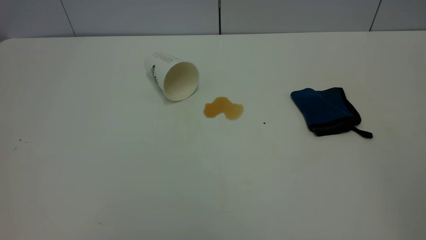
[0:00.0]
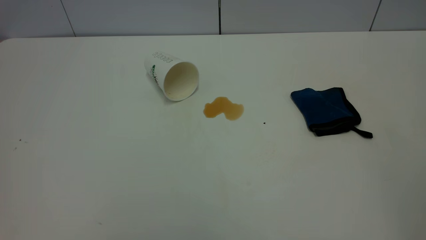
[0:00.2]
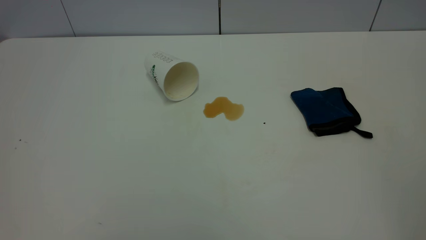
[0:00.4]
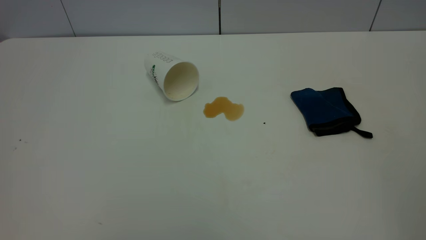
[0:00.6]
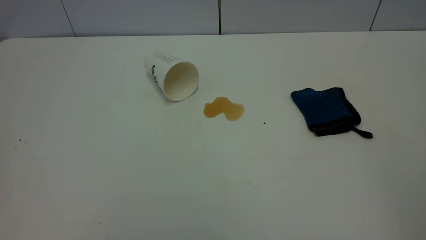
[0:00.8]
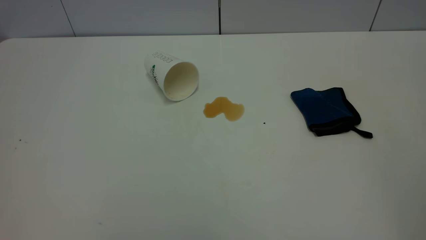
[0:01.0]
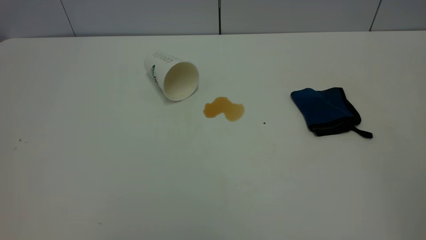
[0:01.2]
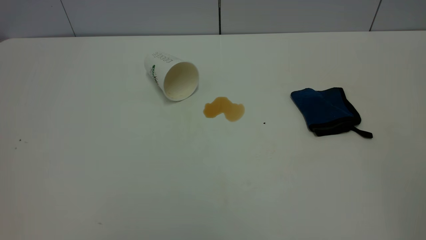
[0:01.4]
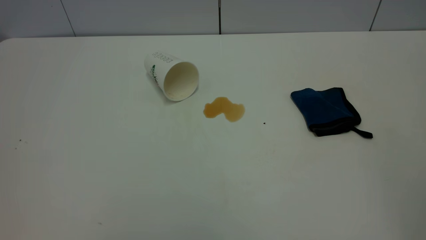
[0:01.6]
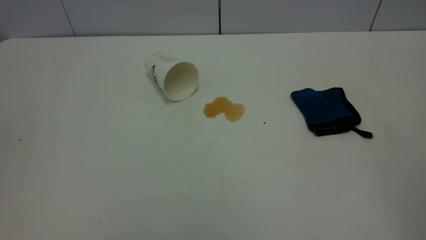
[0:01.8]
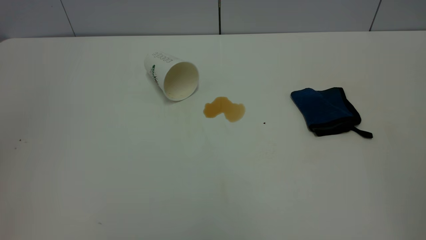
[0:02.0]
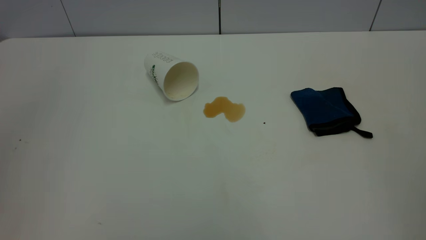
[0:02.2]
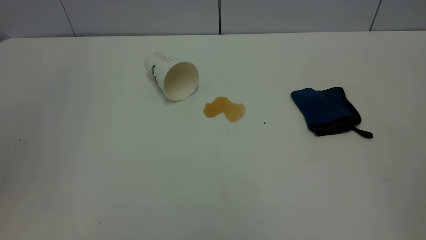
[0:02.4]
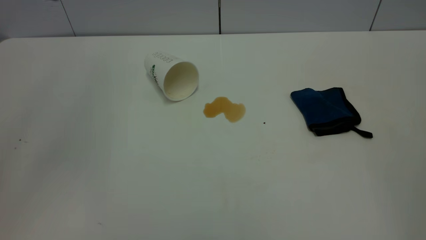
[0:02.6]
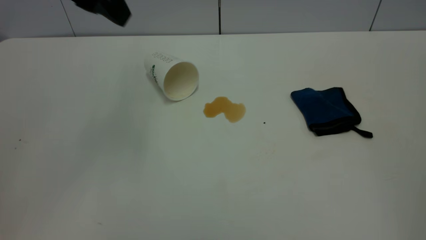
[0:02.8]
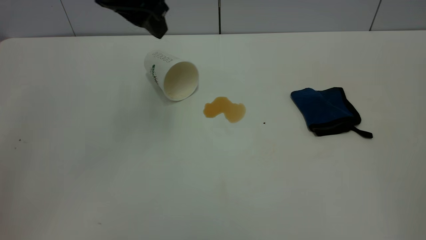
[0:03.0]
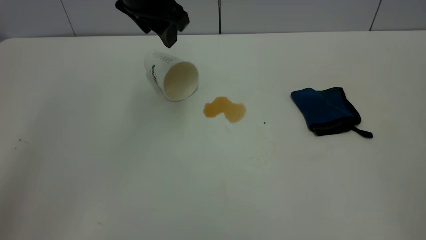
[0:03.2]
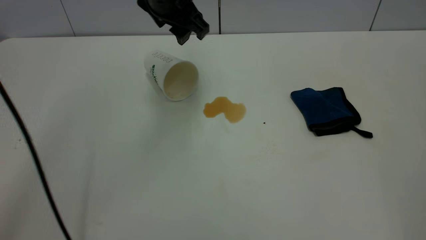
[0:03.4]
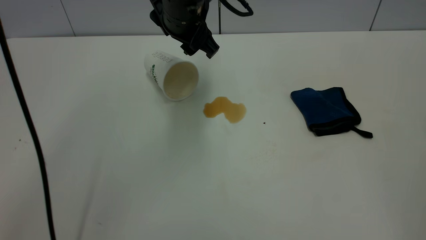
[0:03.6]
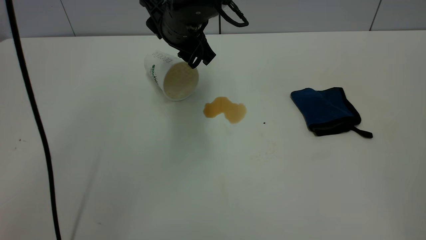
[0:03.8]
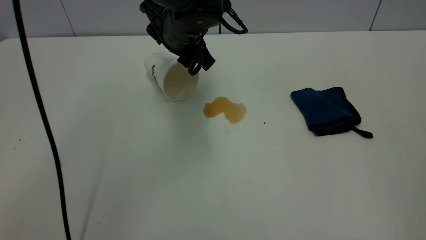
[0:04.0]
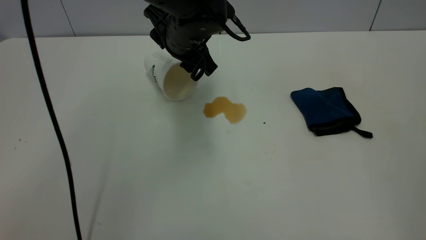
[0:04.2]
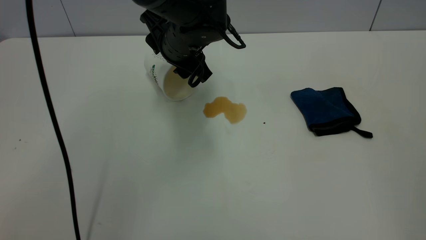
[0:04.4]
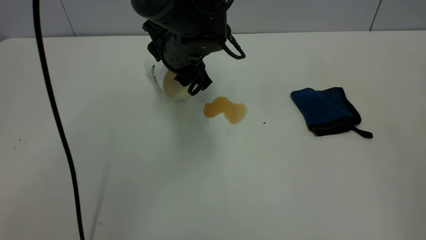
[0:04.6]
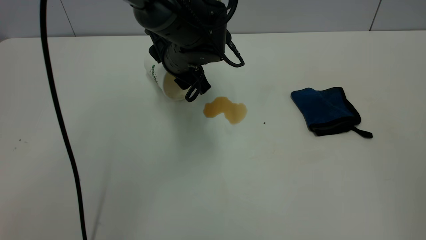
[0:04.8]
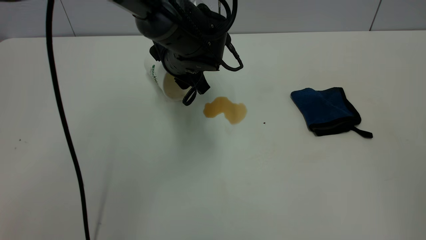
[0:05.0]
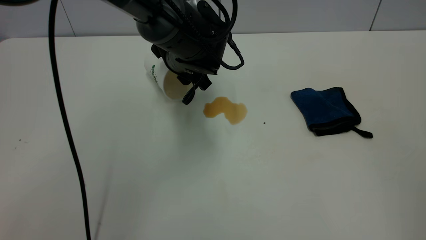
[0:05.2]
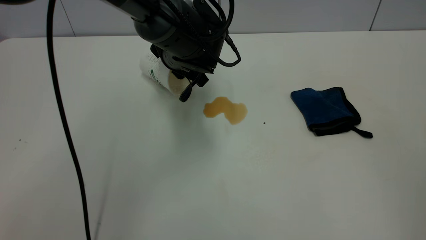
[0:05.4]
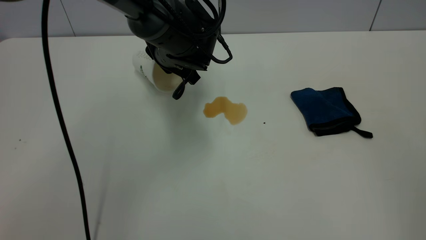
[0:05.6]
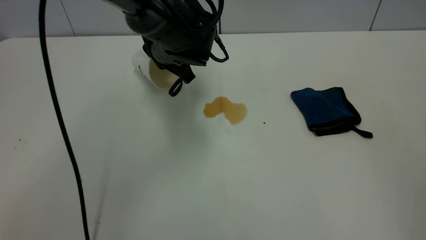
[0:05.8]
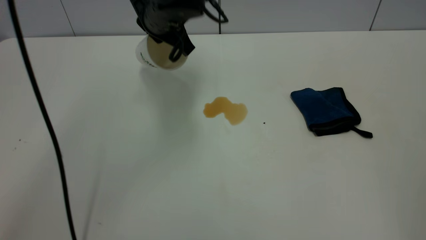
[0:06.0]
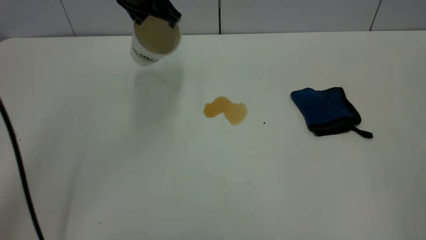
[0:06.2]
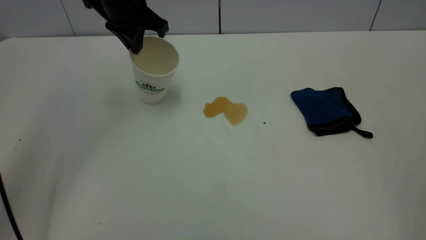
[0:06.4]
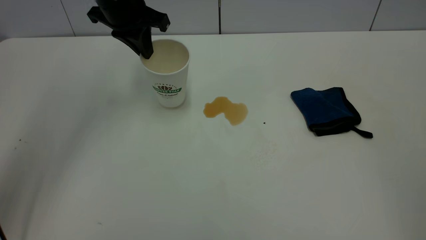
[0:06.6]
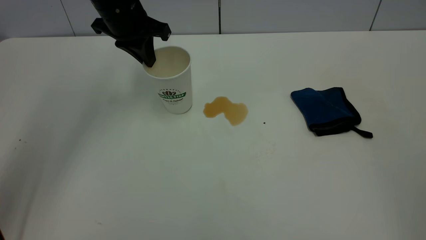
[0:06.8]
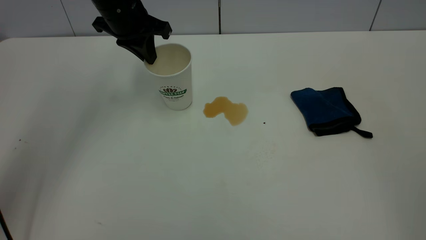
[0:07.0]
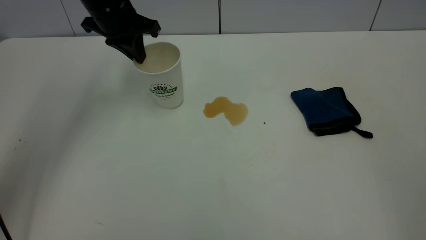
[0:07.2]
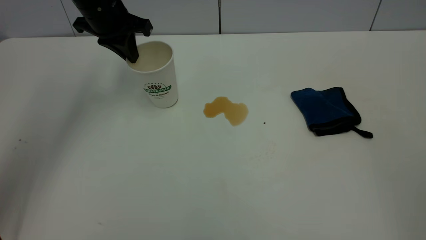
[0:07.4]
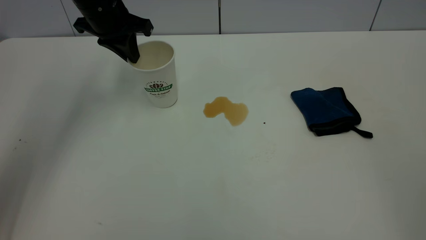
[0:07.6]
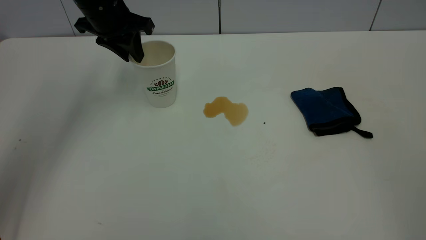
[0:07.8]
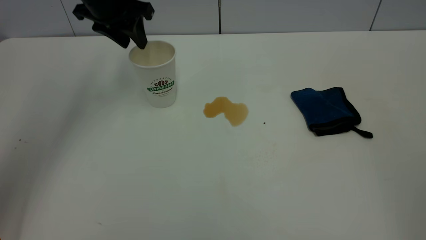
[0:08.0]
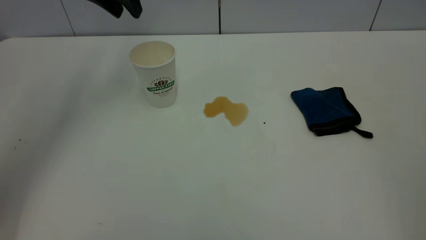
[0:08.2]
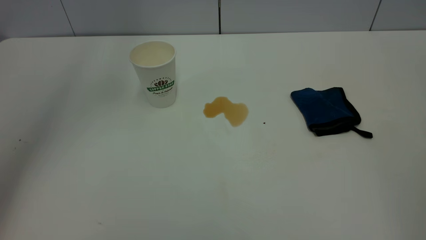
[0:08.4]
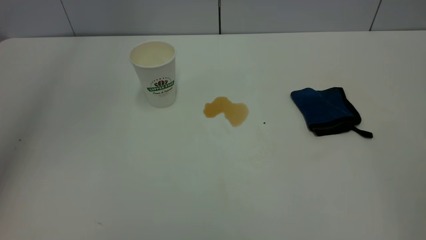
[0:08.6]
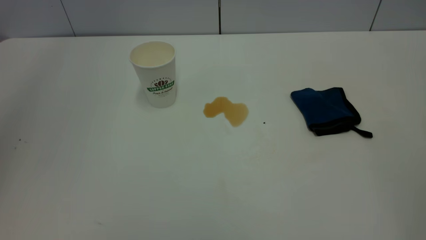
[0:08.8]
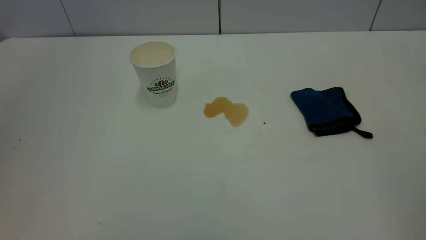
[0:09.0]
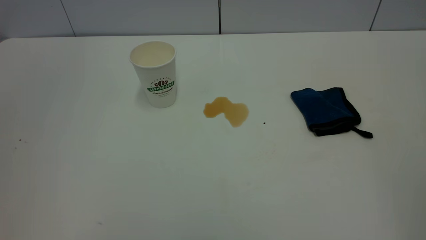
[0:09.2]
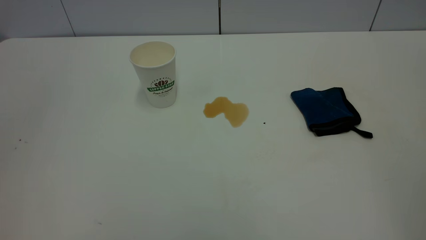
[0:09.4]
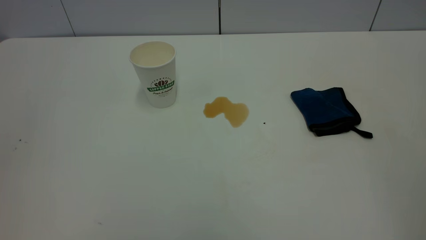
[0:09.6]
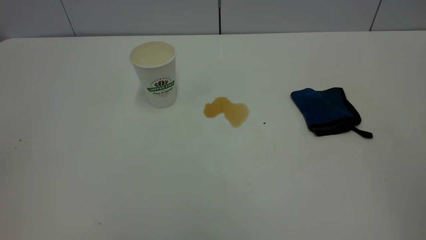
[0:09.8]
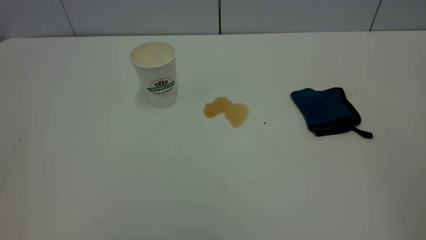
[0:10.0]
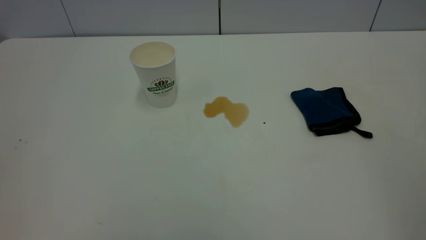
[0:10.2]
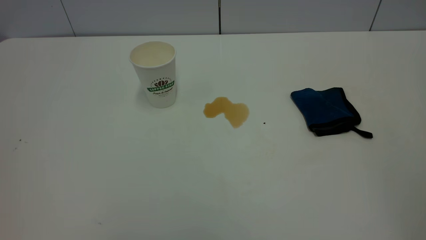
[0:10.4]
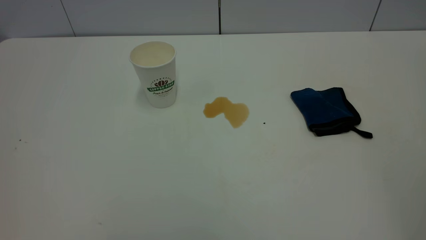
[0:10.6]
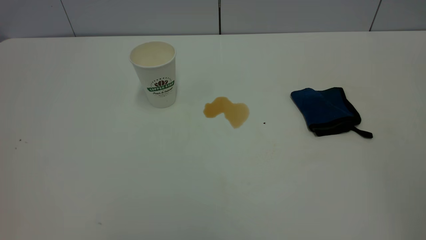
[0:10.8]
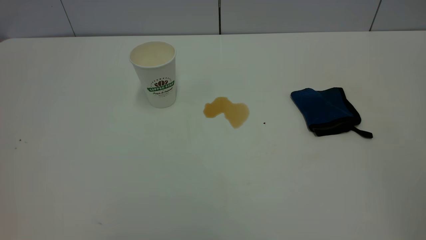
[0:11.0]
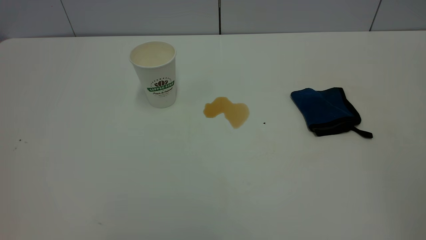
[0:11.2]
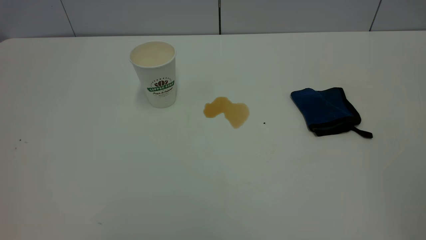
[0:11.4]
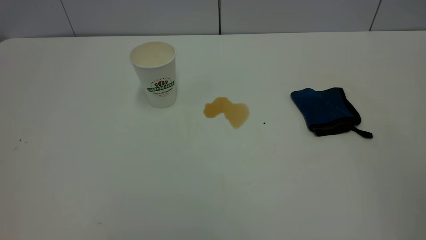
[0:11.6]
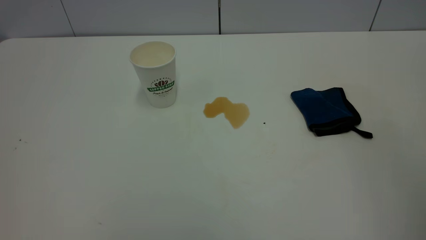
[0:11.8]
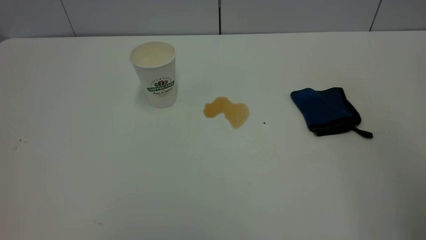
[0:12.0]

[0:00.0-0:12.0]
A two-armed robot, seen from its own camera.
Task of the whole recording: the left gripper pick up the fallen cup and place it upright, the right gripper grasp the blue rag and wipe the tea stain on the table, the right gripper put the blue rag back in its original position.
Step, 0:00.0 to 0:07.8: Stand the paper cup upright.
0:01.6 to 0:03.0: The left gripper goes roughly 40 cm forward and to the right.
0:03.0 to 0:04.4: The left gripper heads downward and to the right, covering about 15 cm.
0:04.4 to 0:06.0: The left gripper is displaced upward by approximately 5 cm, and closes up.
0:06.0 to 0:07.6: The left gripper goes some 10 cm to the left.
0:07.6 to 0:09.0: The left gripper is displaced upward and backward by some 40 cm, and opens.

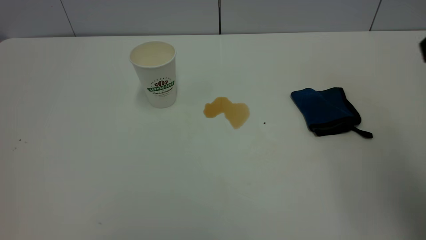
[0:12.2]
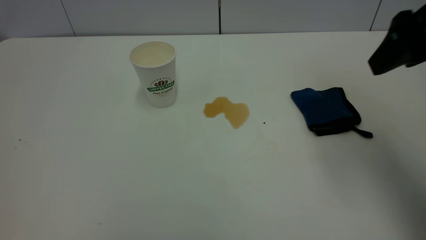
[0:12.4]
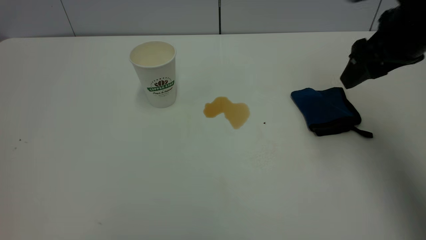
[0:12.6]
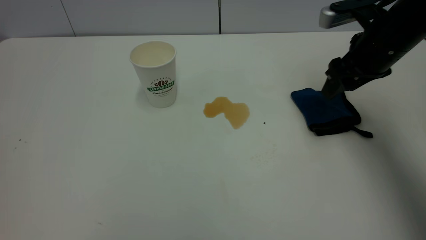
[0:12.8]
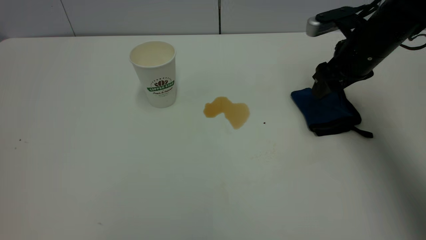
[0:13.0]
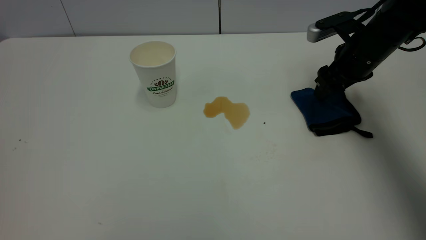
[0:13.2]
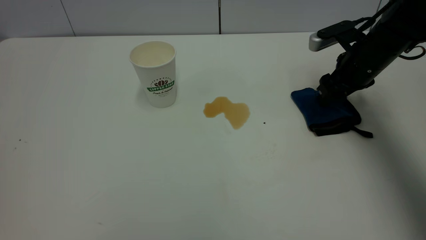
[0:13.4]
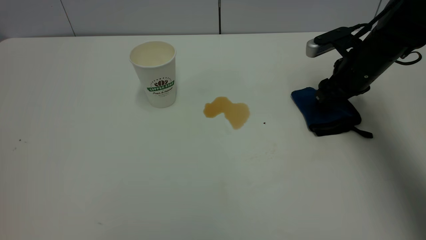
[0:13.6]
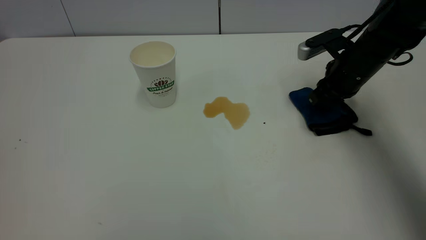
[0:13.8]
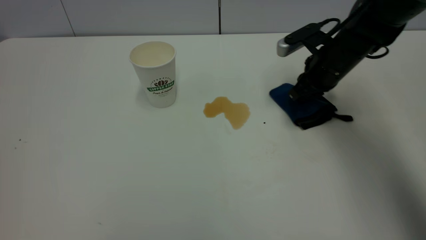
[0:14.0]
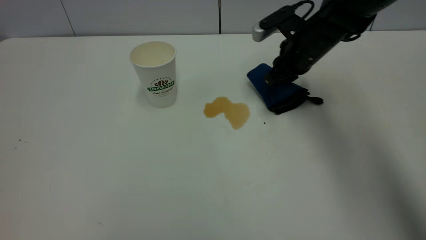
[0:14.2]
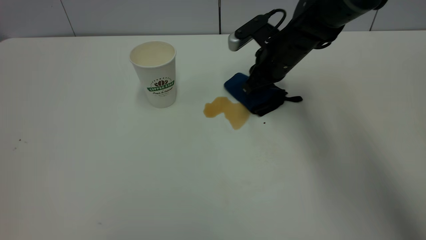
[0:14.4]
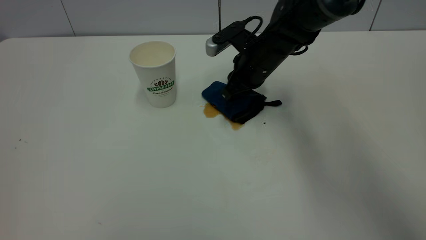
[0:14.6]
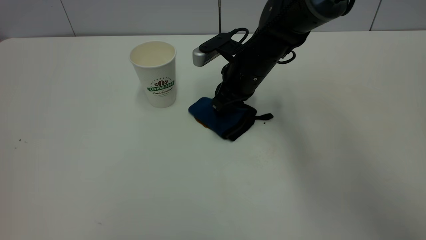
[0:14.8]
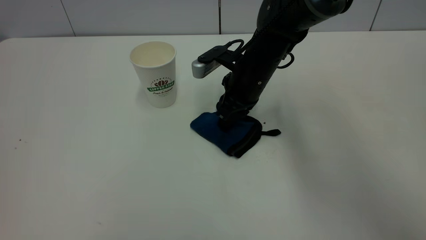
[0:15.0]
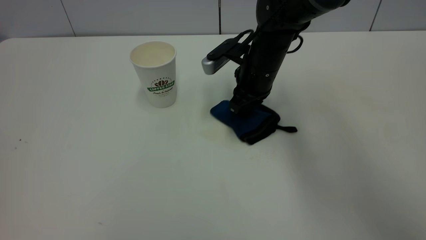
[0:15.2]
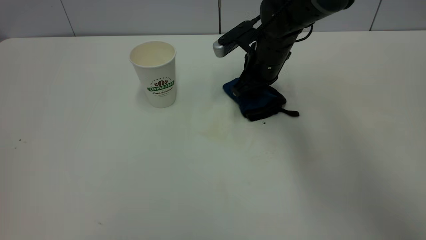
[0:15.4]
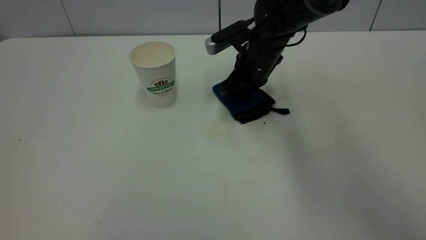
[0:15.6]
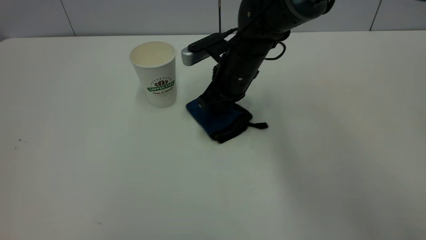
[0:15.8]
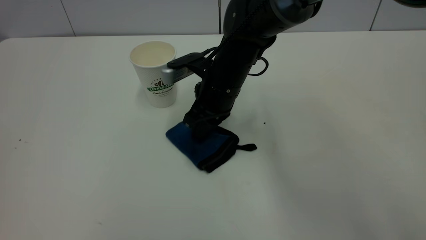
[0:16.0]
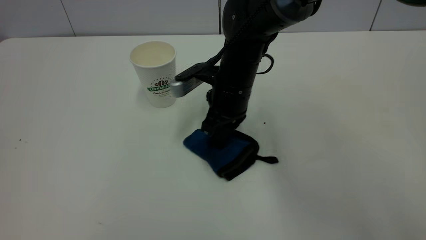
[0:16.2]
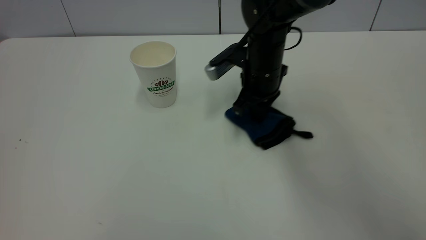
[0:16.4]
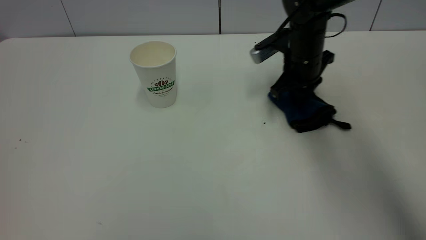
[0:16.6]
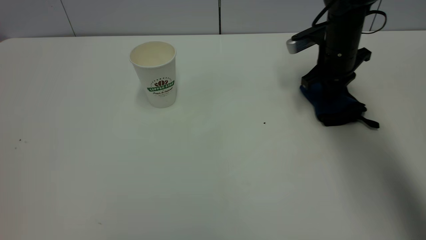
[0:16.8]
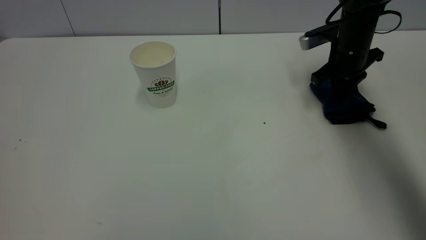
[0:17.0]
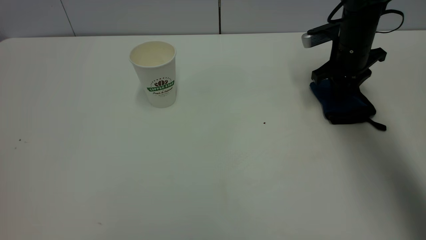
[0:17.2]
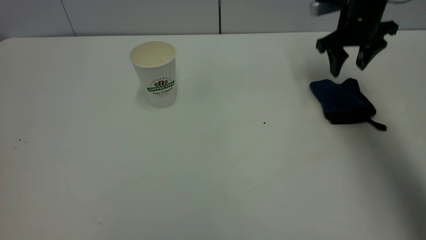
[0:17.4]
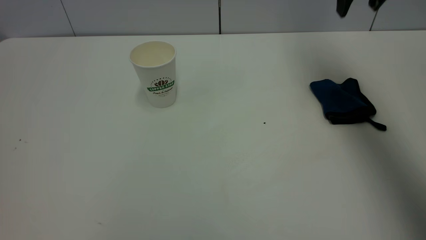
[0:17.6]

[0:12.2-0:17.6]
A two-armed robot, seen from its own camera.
Task of the whole recording: the left gripper pick up the fallen cup and place it upright, the right gripper grasp the blue rag and wipe the tea stain on the table, the right gripper put the blue rag back in its original position.
Step, 0:12.2 to 0:17.2: Wipe the stains off the table with a rag.
0:12.2 to 0:13.6: The right gripper heads forward and downward, covering approximately 30 cm.
0:13.6 to 0:15.0: The right gripper heads to the left, covering roughly 20 cm, and closes up.
0:16.2 to 0:17.6: The right gripper goes some 30 cm to the right and upward, and opens its fingers.
